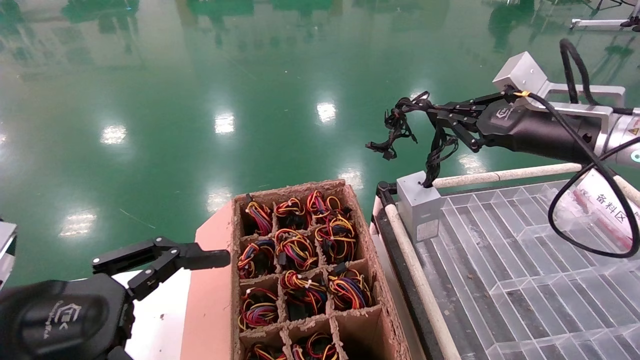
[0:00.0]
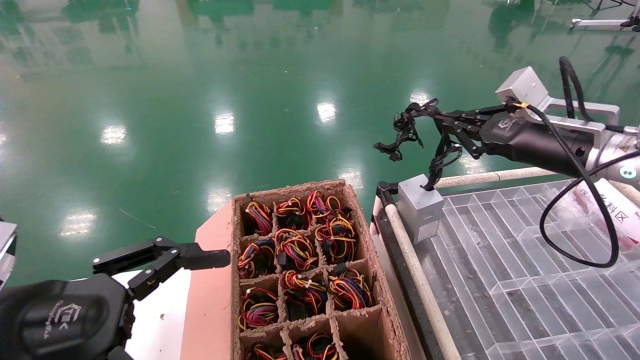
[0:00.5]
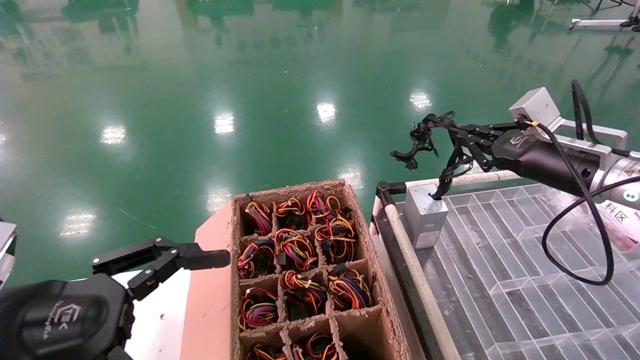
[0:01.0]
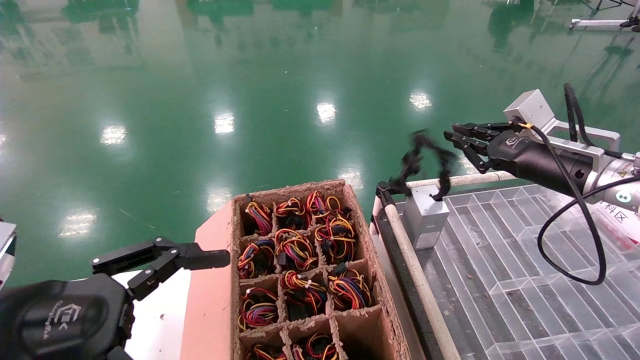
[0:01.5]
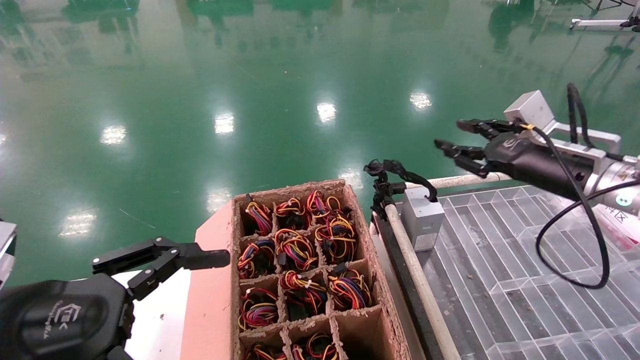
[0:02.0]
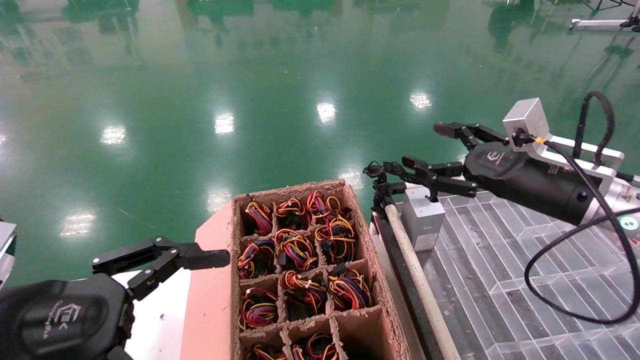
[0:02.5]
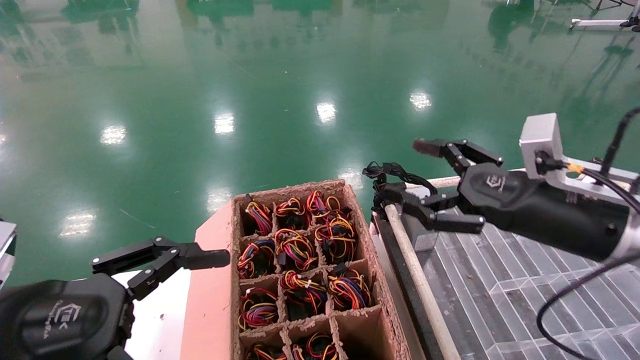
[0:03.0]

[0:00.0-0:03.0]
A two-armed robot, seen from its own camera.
0:00.0 to 0:01.5: The right gripper travels downward by roughly 5 cm.
0:01.5 to 0:03.0: The right gripper travels backward and to the left by about 10 cm, and opens.

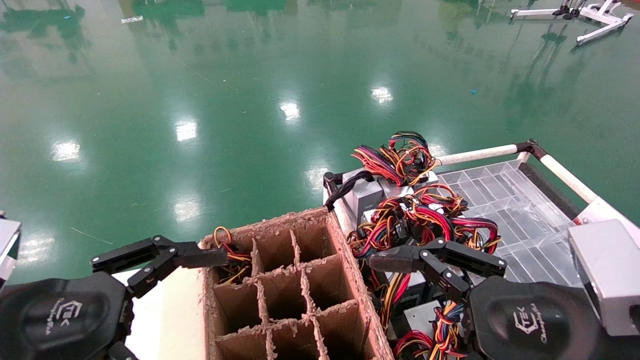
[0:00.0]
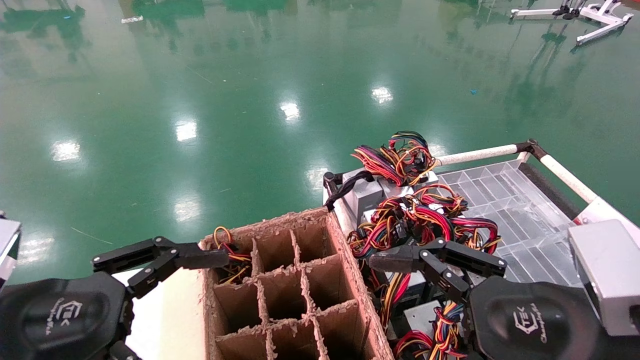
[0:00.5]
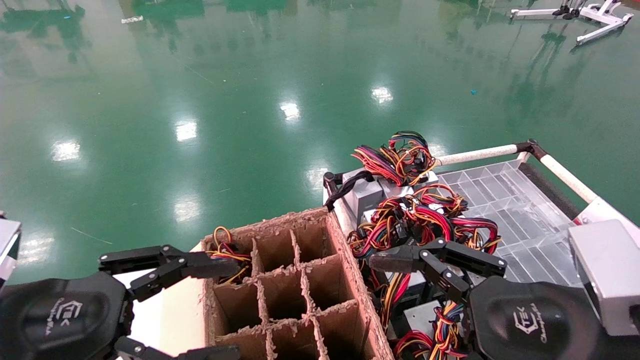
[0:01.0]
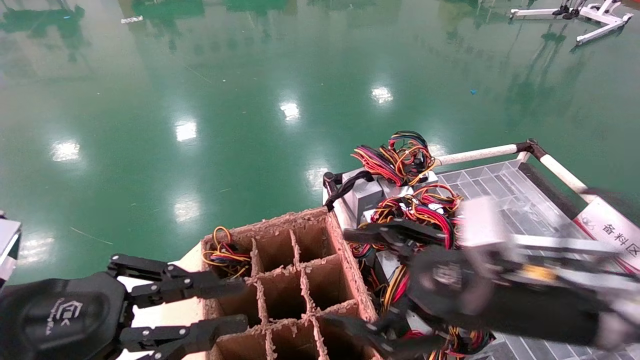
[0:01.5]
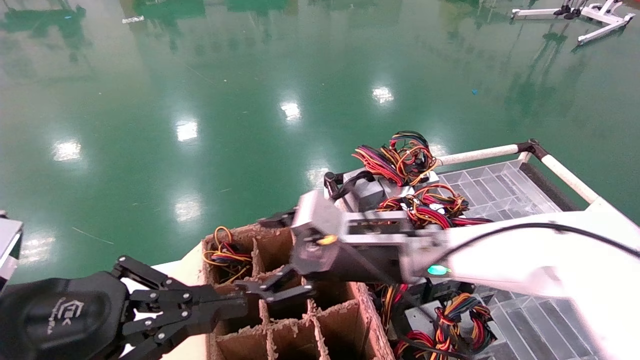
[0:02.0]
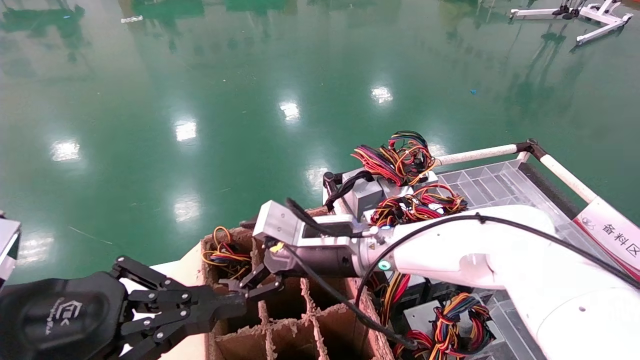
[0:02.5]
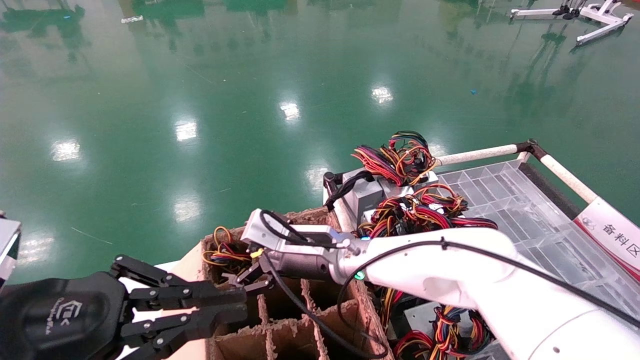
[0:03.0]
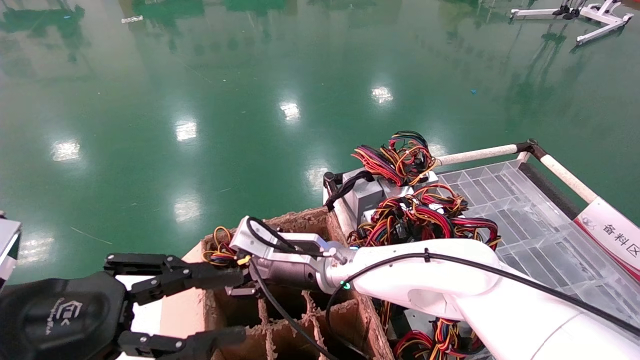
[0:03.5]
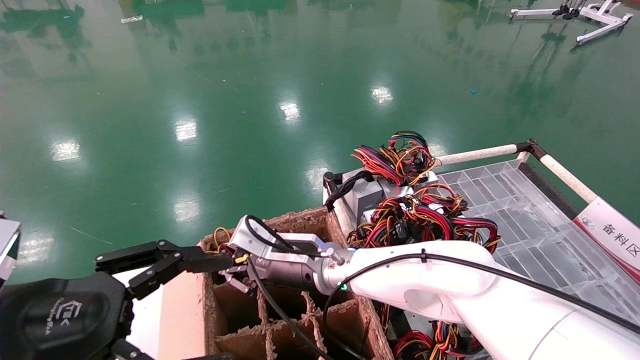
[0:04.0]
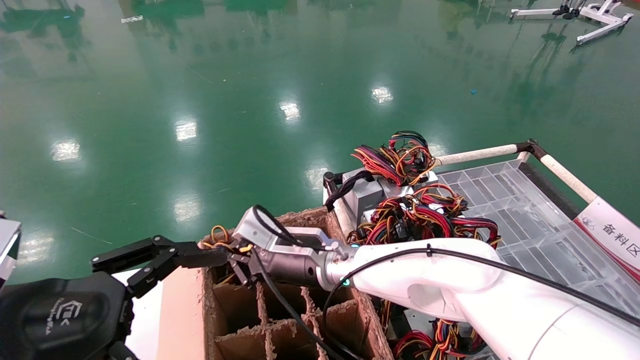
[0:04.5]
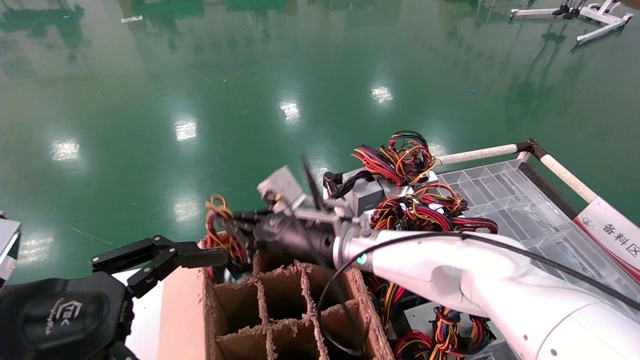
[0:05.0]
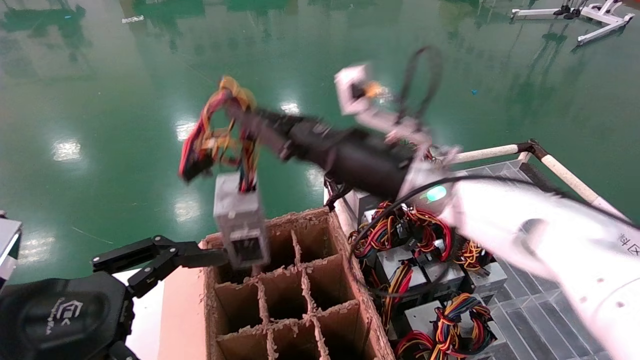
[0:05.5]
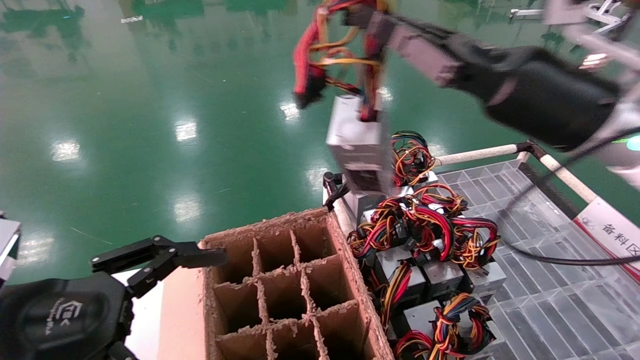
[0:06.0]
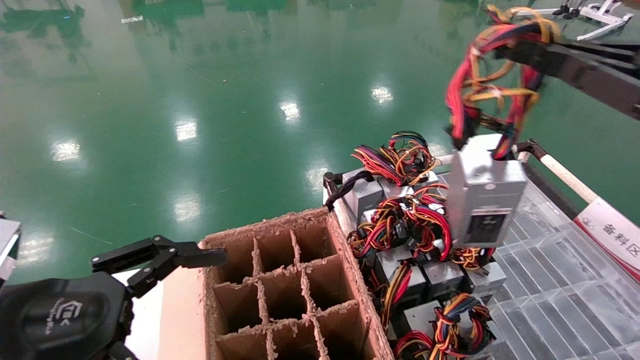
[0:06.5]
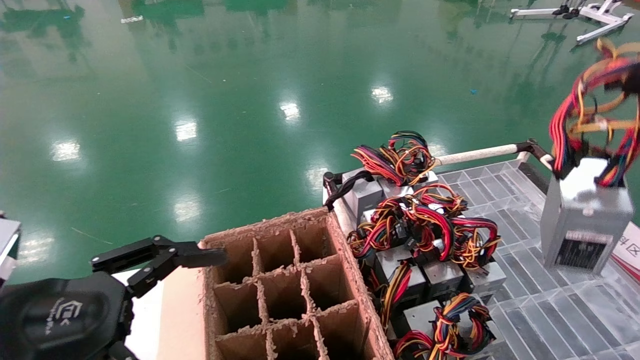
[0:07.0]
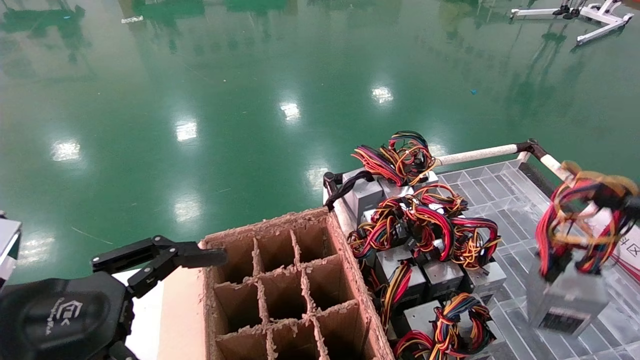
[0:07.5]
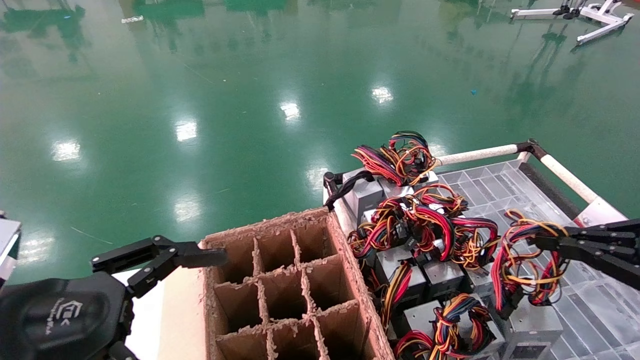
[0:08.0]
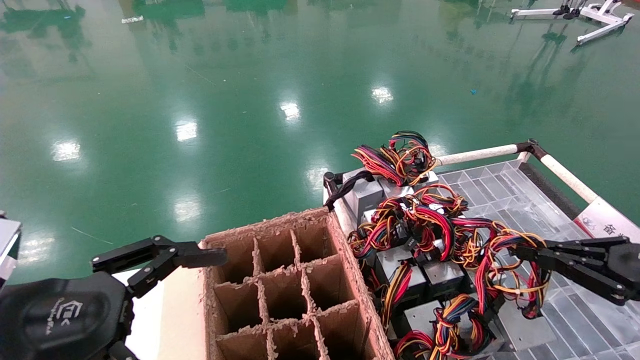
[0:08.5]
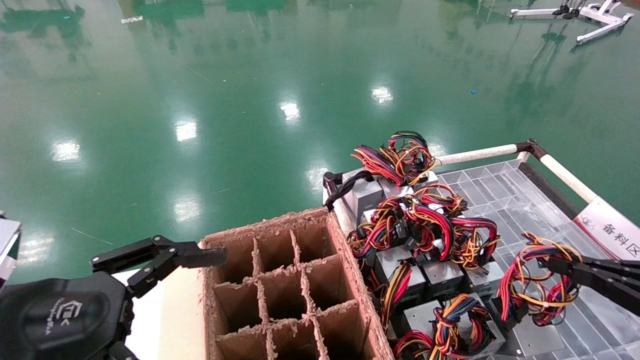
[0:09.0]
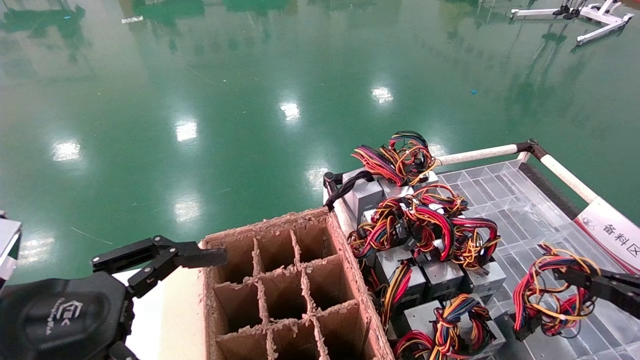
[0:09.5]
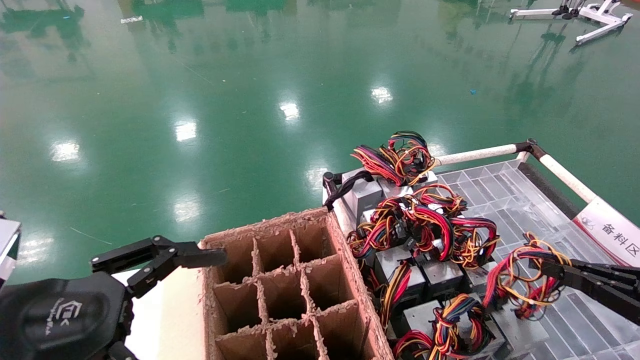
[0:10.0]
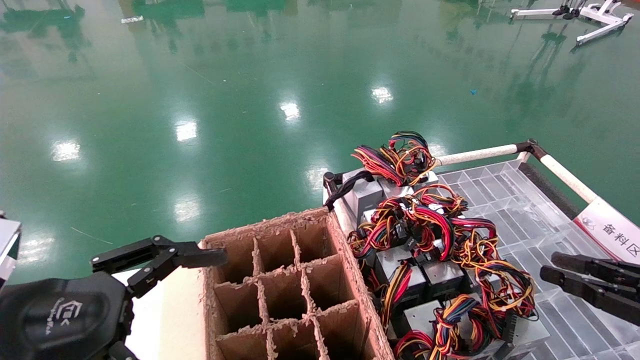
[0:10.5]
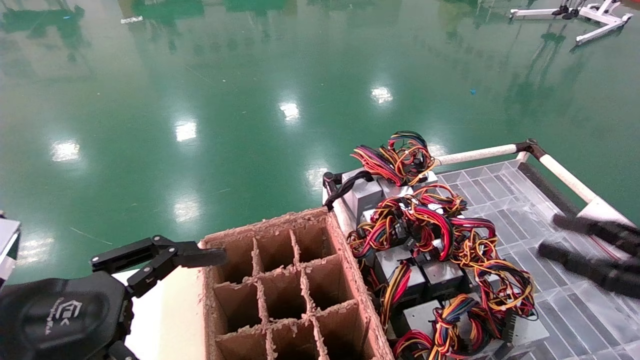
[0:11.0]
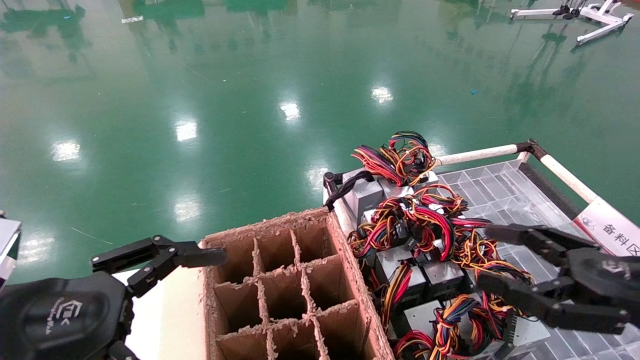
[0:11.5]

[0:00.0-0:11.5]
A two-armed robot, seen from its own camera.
Step, 0:02.5 to 0:04.5: Grab and lift the power supply from the large box.
Step, 0:05.0 to 0:10.0: Place the power supply on the operating table.
0:00.0 to 0:02.0: The right gripper heads forward and to the left, covering some 25 cm, while the left gripper closes its fingers.
0:02.0 to 0:04.0: The left gripper opens. The right gripper is displaced to the left and forward by roughly 10 cm, and closes.
0:04.0 to 0:06.0: The right gripper travels to the right, upward and backward by about 35 cm, and closes its fingers.
0:06.0 to 0:07.5: The right gripper travels to the right and backward by some 25 cm.
0:07.5 to 0:09.5: The right gripper heads downward, covering some 10 cm.
0:09.5 to 0:11.5: The right gripper travels to the left by approximately 10 cm, and opens up.
